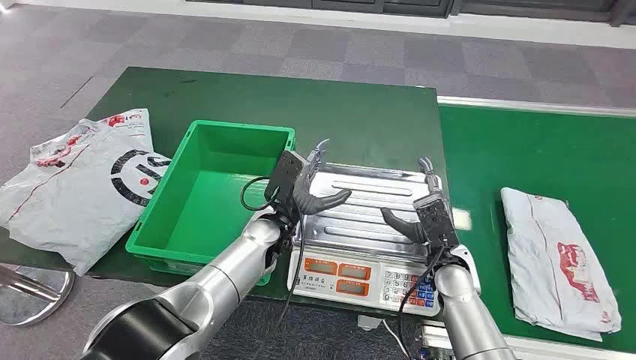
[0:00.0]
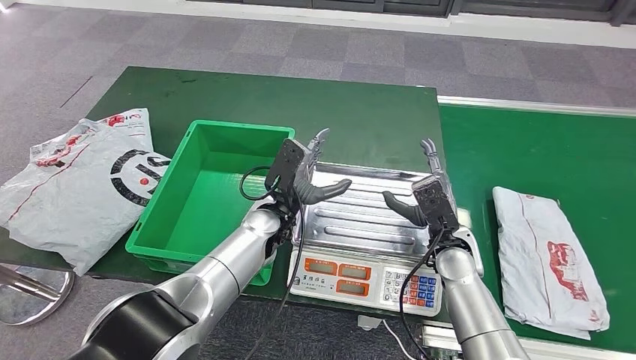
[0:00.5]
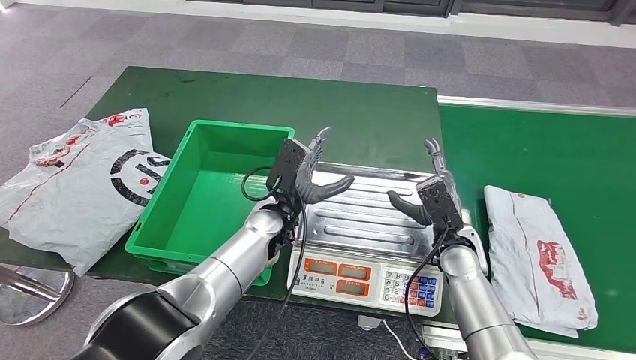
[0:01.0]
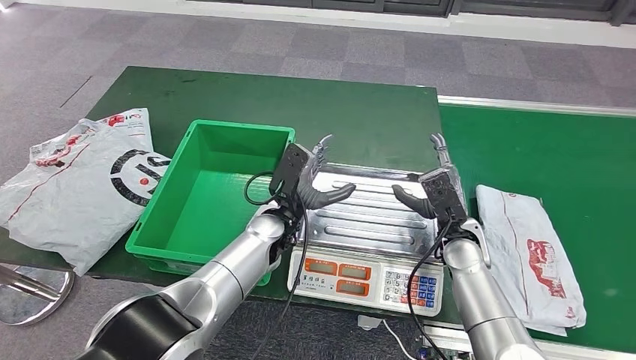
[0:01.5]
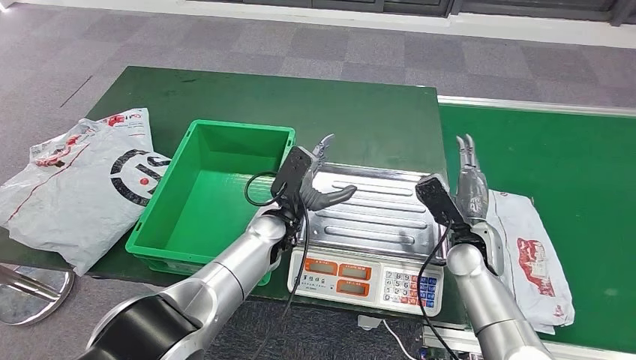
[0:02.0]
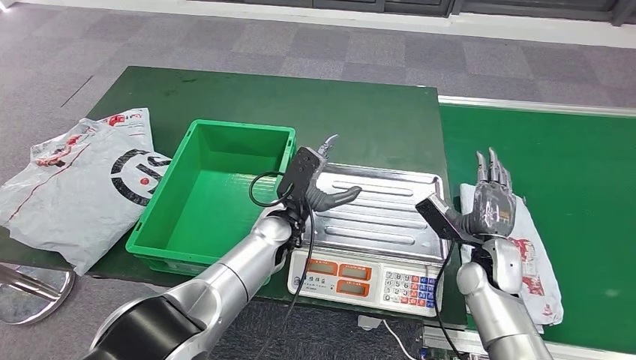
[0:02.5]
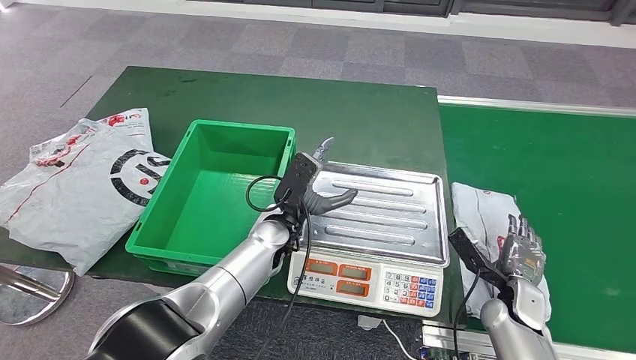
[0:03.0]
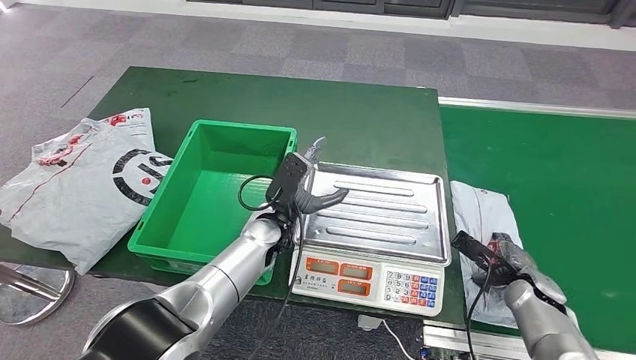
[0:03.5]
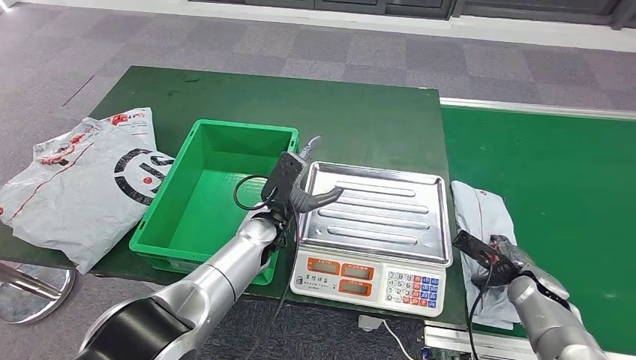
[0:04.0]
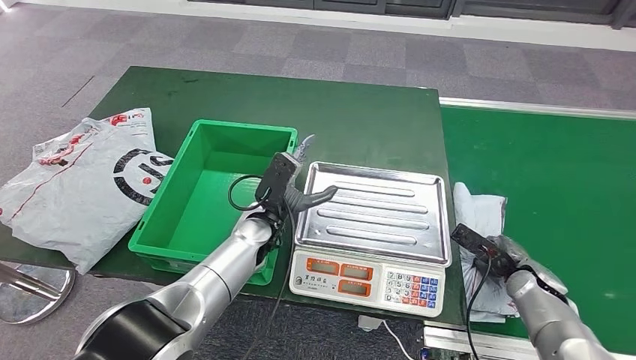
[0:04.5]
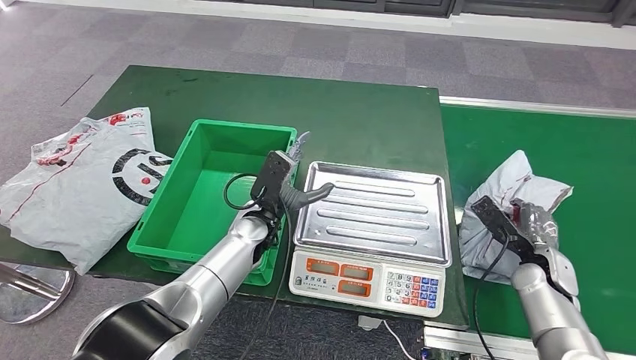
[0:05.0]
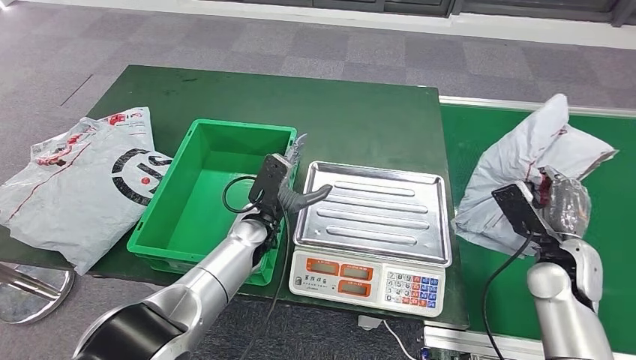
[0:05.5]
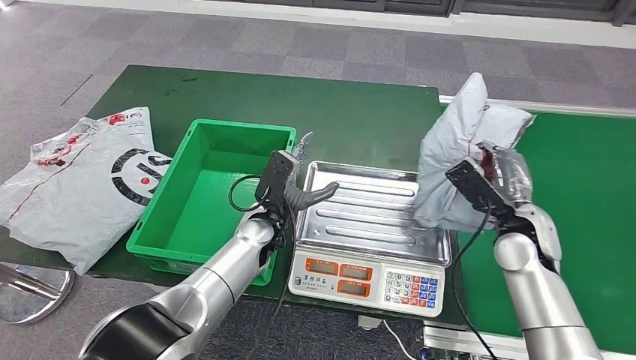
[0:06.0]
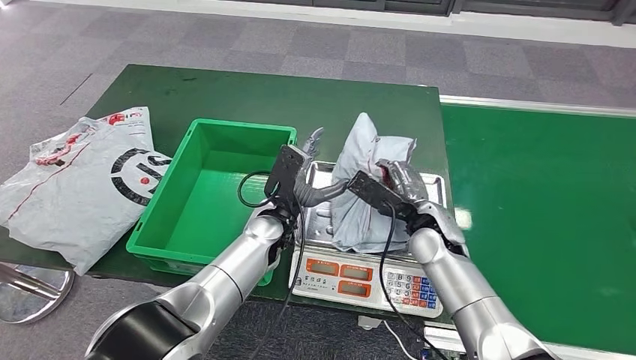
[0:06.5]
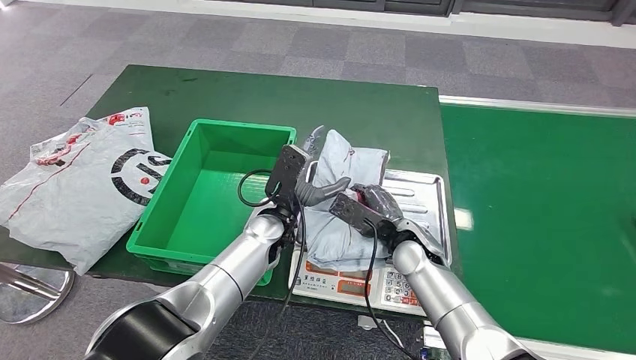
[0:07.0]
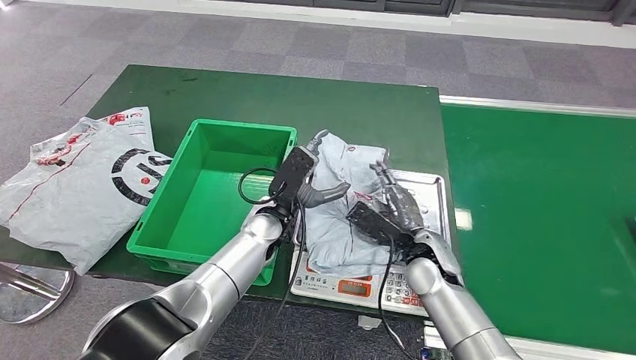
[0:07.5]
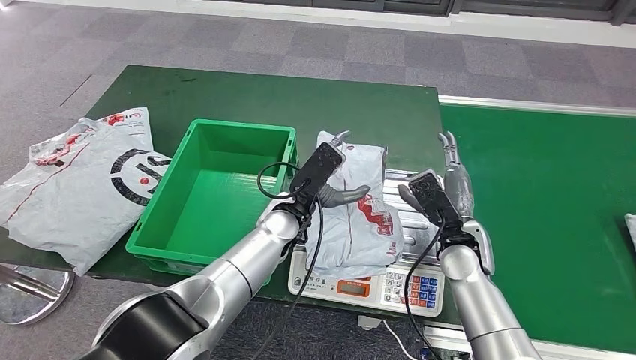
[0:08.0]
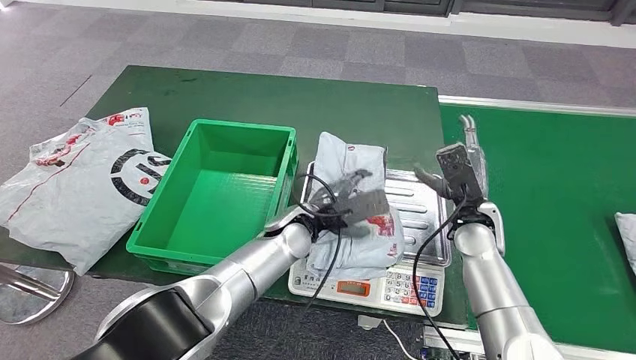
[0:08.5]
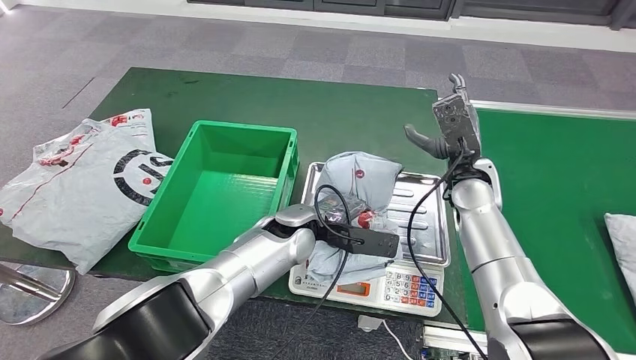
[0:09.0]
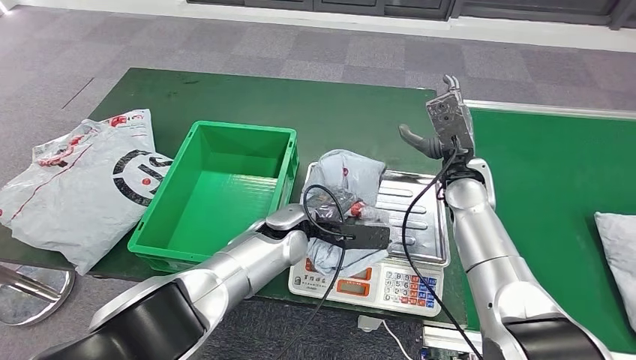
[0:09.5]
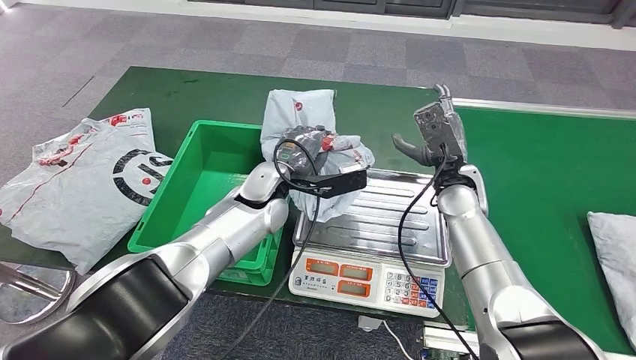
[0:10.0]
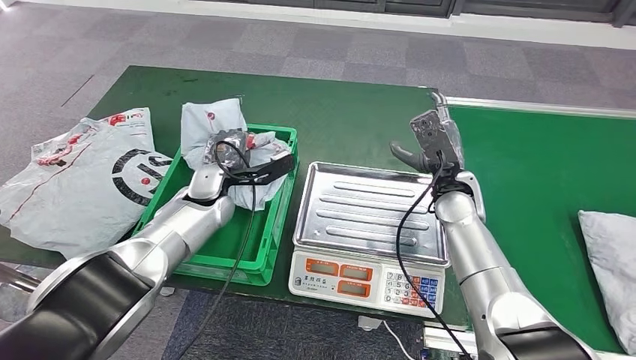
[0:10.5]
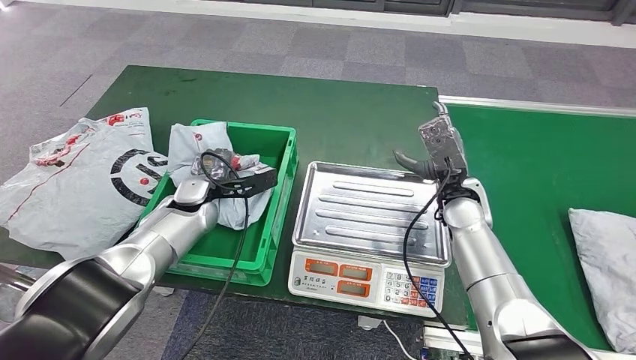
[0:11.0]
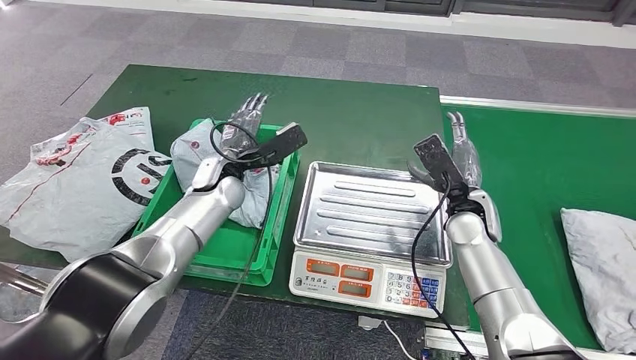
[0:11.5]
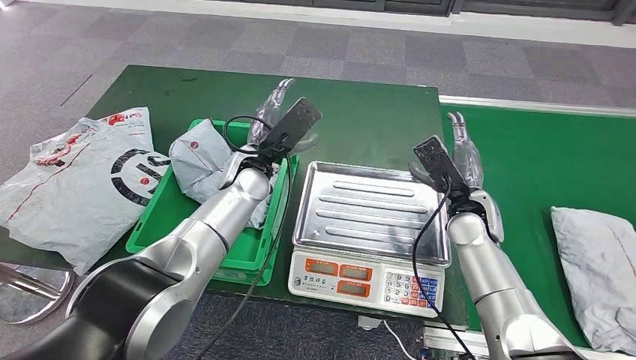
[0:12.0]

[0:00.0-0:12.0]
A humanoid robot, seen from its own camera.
Step, 0:00.0 to 0:05.5: Take the parcel off the conveyor belt.
Step, 0:06.0 to 0:07.5: Place the parcel onto the inbound machine.
Step, 0:08.0 to 0:10.0: Pick up the parcel from the inbound machine.

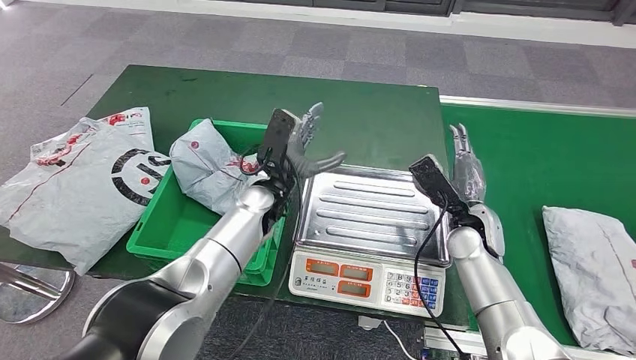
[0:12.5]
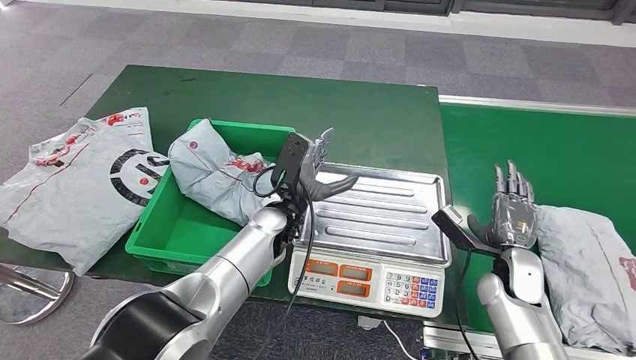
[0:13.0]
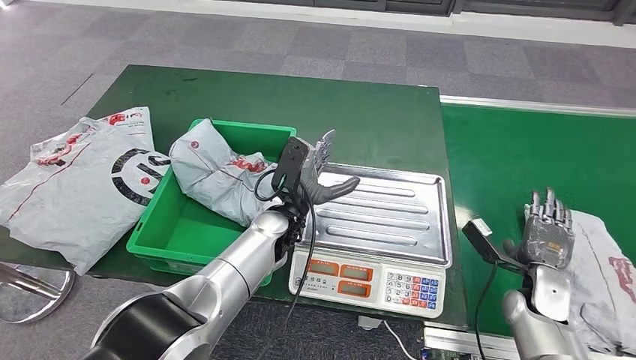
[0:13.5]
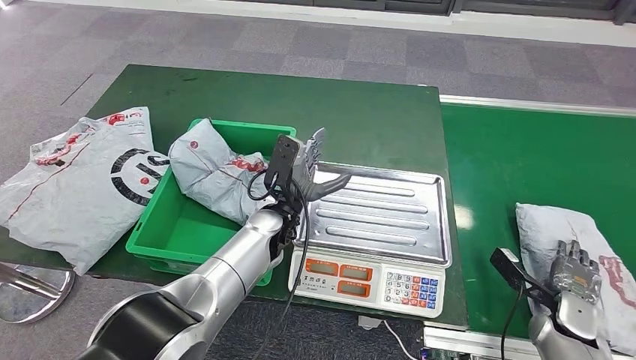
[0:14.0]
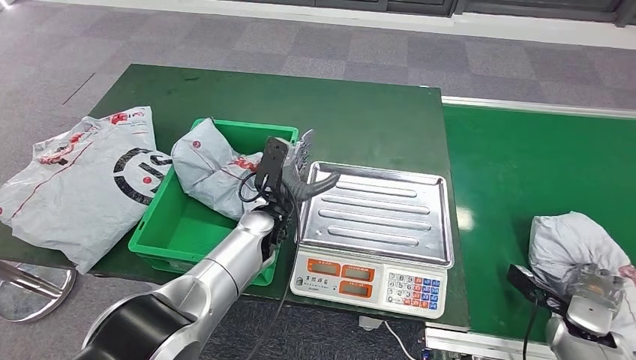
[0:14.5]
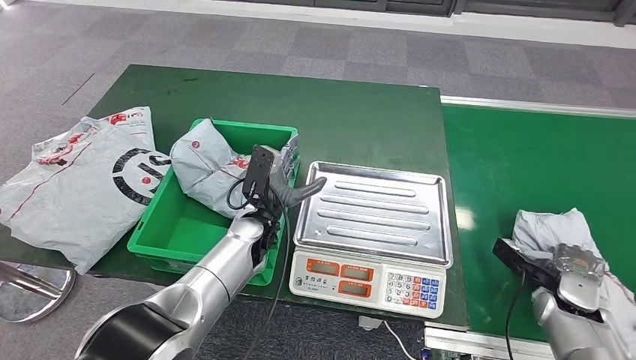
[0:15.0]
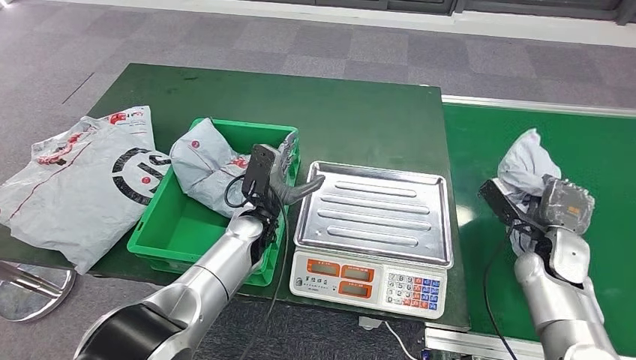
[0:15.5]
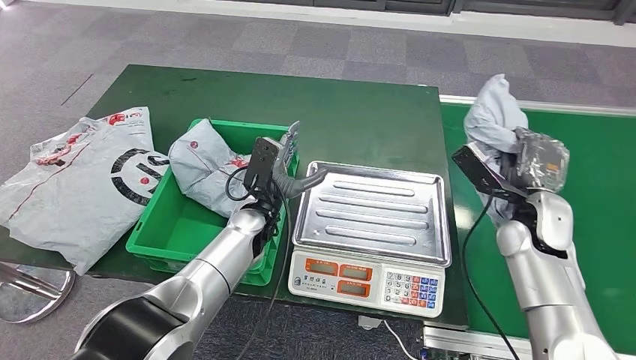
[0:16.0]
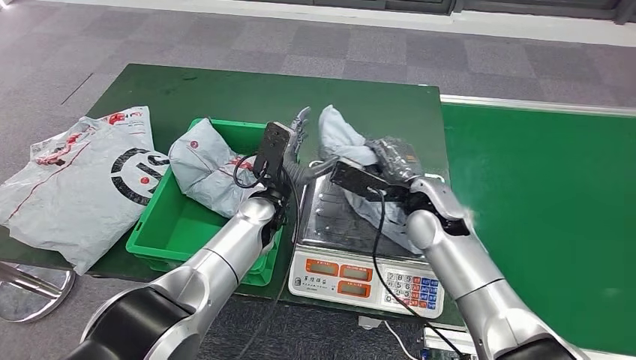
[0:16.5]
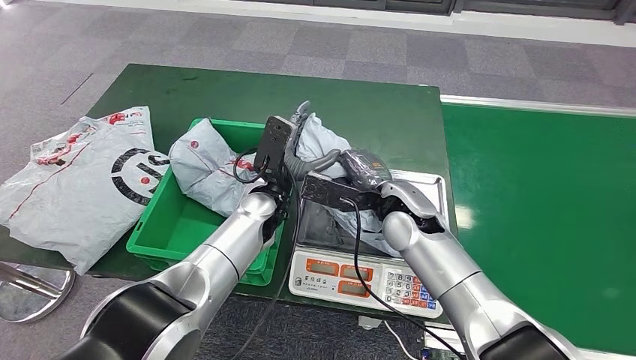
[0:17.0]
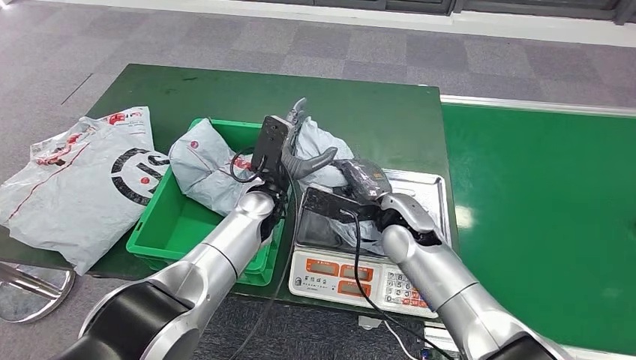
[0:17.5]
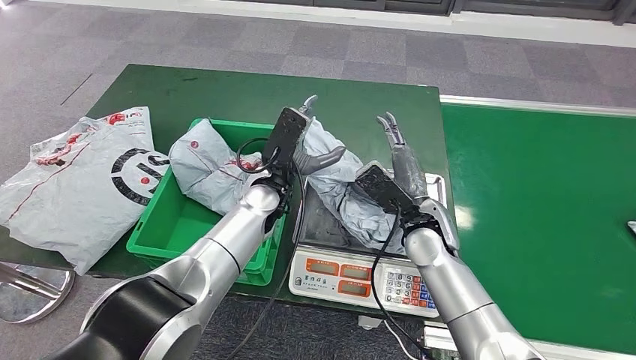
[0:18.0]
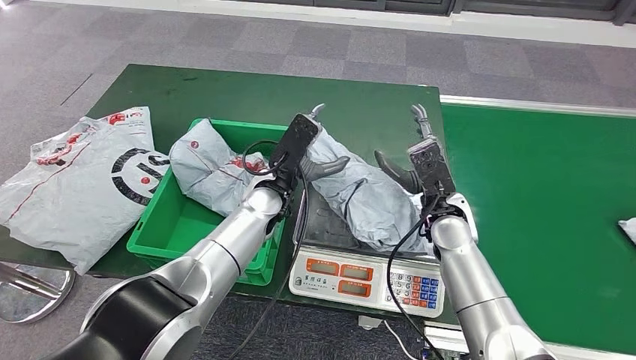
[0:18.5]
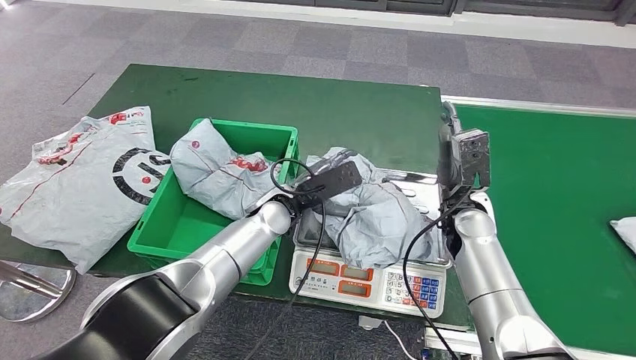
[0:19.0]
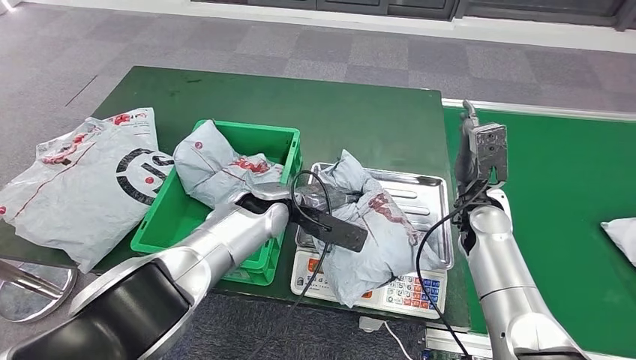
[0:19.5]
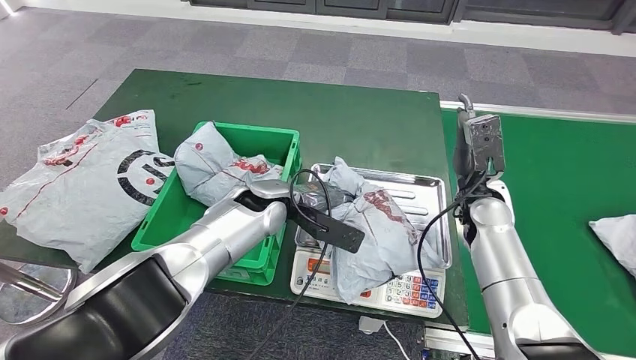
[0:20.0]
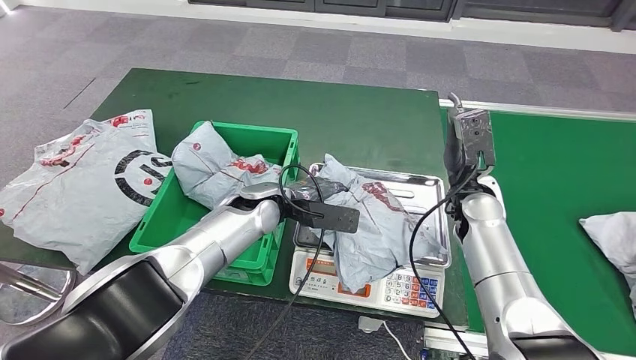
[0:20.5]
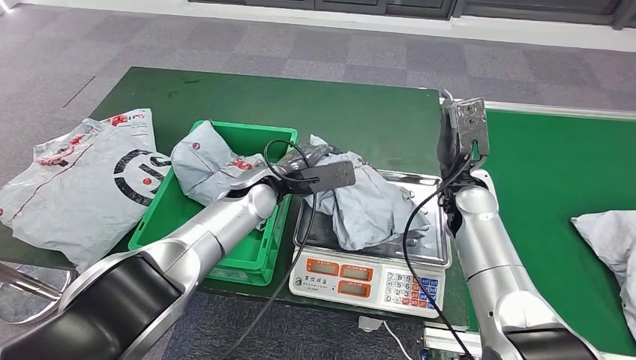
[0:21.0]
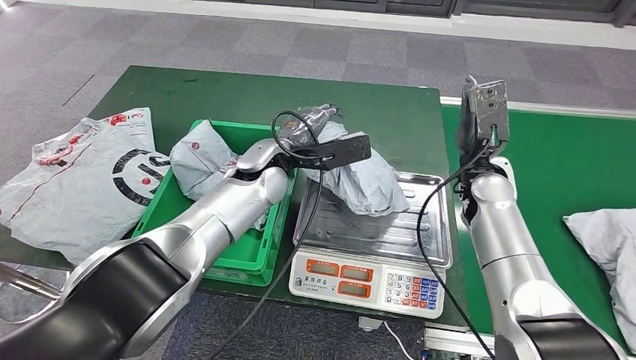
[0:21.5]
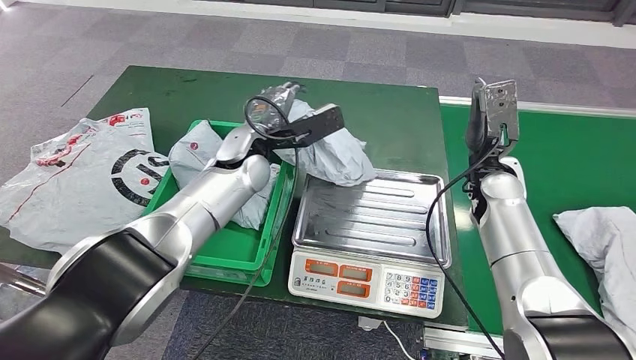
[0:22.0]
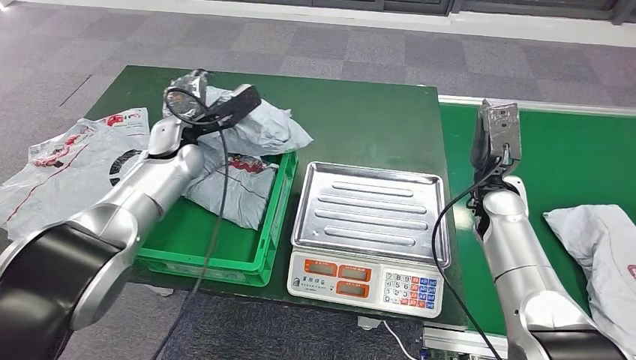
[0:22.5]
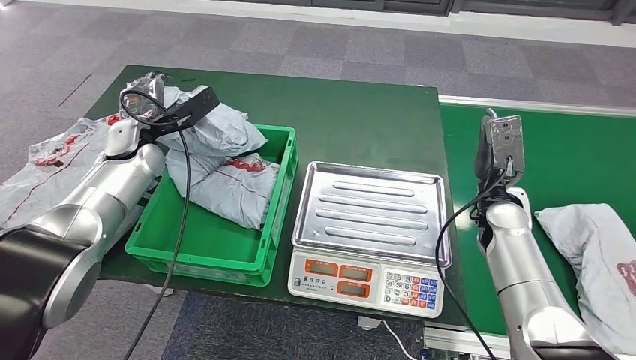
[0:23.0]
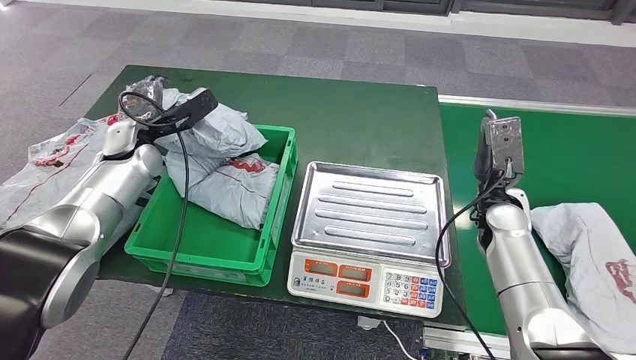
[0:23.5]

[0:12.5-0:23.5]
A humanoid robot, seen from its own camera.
Step, 0:13.5 to 0:15.5: Pick up the parcel from the conveyor belt.
Step, 0:16.0 to 0:18.0: Place the parcel onto the inbound machine.
Step, 0:18.5 to 0:22.0: Pick up the parcel from the inbound machine.
